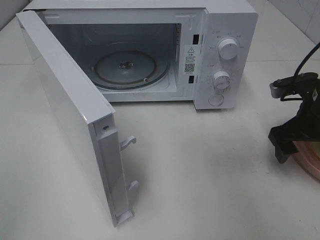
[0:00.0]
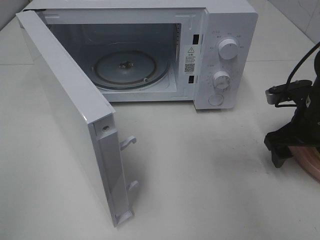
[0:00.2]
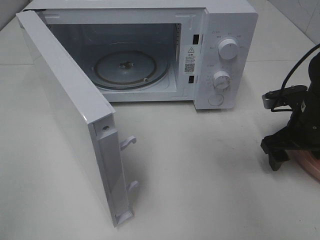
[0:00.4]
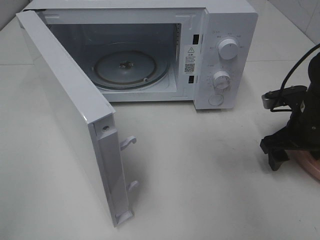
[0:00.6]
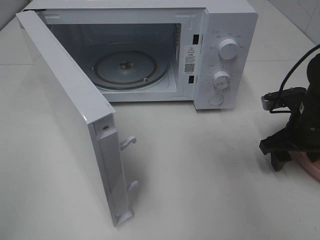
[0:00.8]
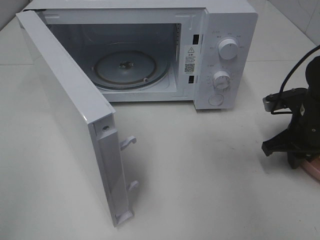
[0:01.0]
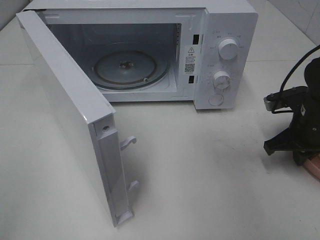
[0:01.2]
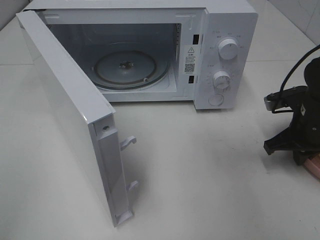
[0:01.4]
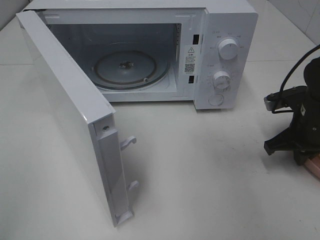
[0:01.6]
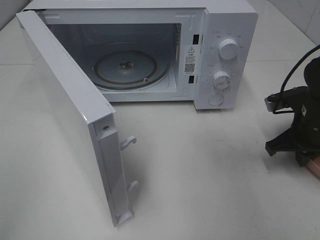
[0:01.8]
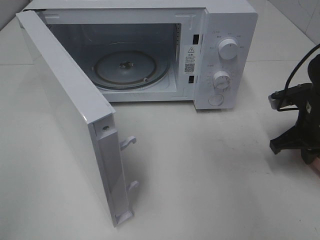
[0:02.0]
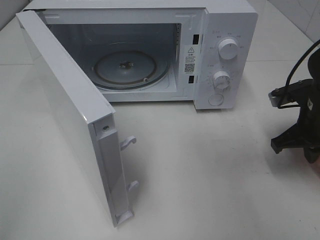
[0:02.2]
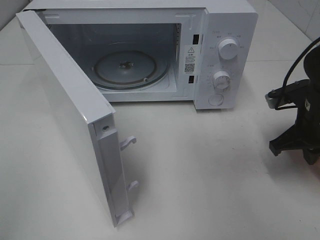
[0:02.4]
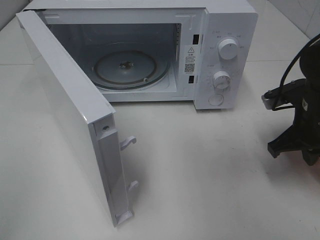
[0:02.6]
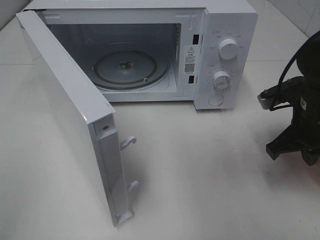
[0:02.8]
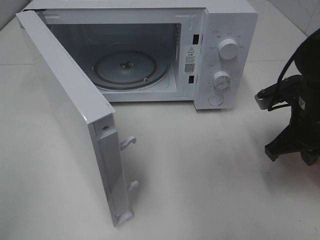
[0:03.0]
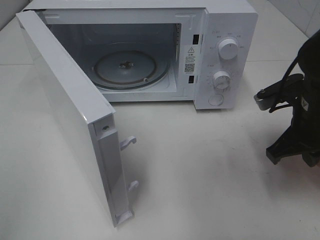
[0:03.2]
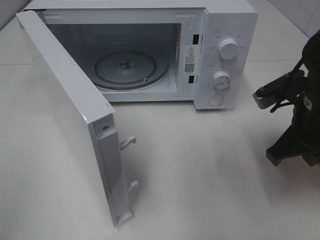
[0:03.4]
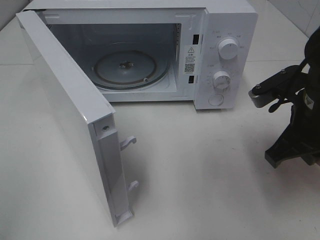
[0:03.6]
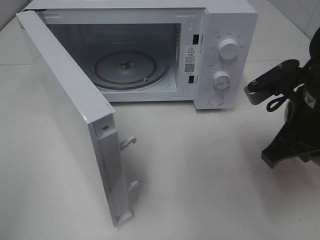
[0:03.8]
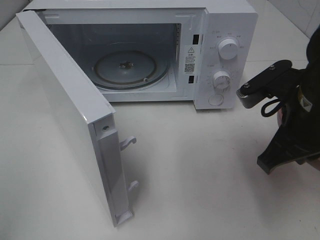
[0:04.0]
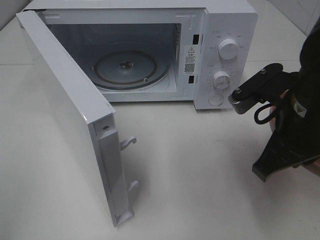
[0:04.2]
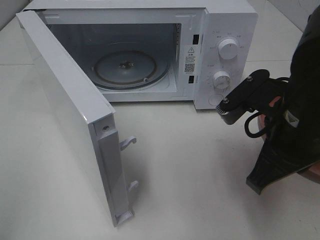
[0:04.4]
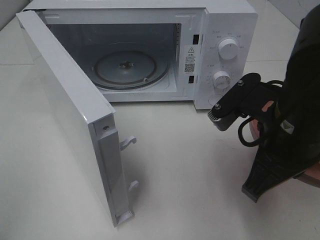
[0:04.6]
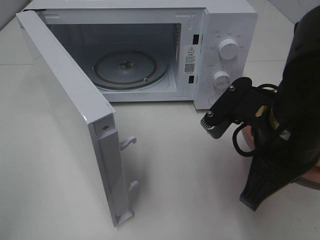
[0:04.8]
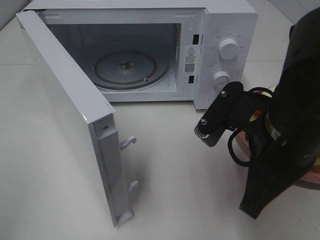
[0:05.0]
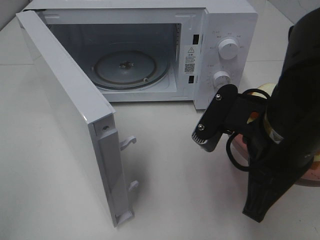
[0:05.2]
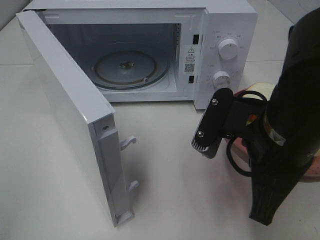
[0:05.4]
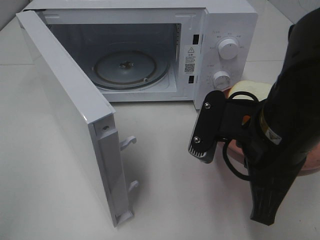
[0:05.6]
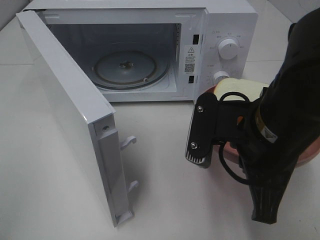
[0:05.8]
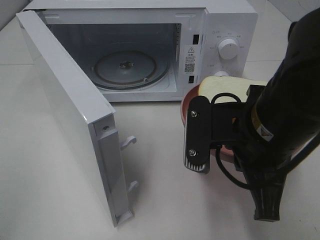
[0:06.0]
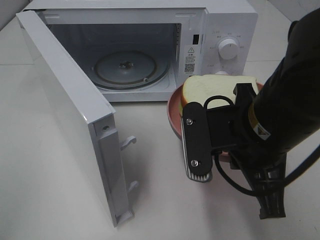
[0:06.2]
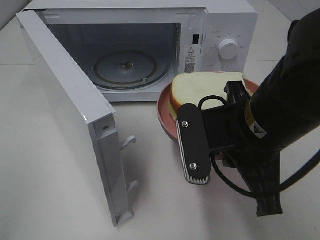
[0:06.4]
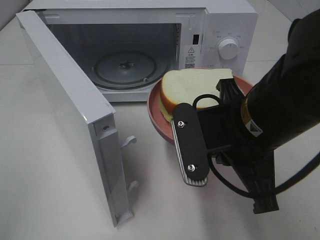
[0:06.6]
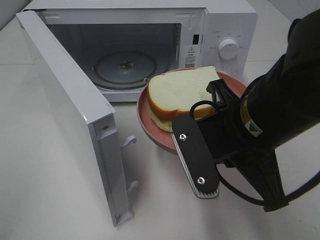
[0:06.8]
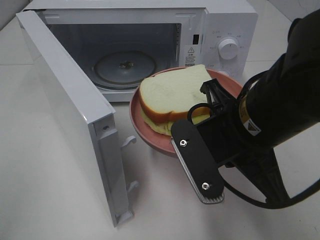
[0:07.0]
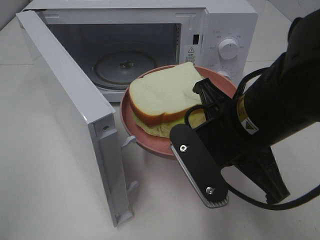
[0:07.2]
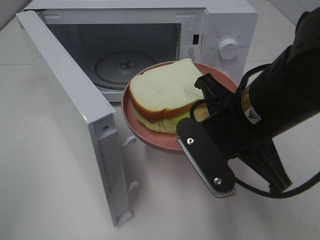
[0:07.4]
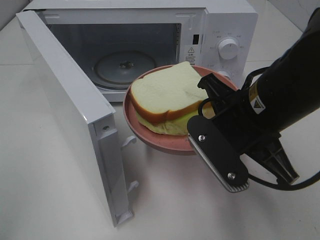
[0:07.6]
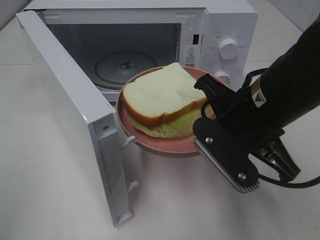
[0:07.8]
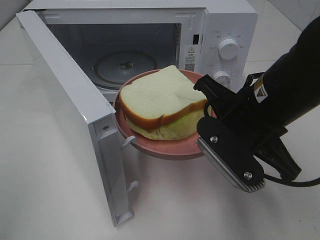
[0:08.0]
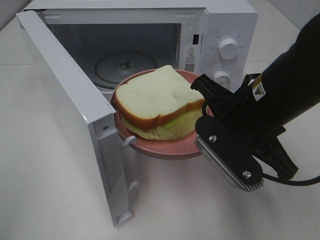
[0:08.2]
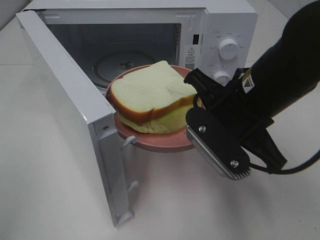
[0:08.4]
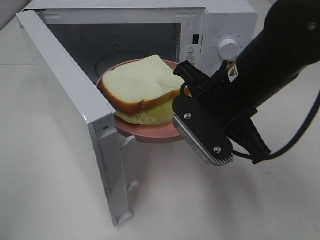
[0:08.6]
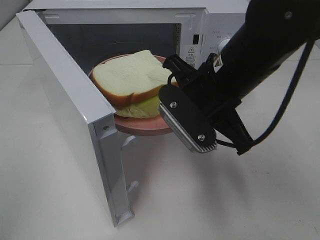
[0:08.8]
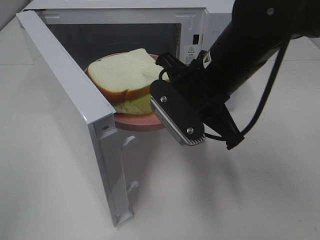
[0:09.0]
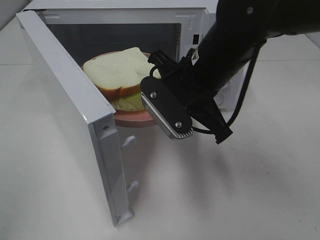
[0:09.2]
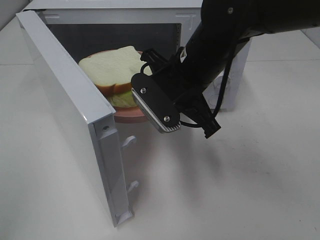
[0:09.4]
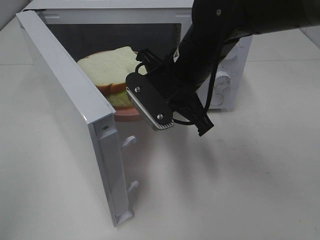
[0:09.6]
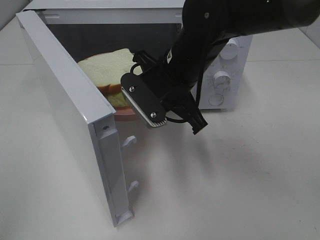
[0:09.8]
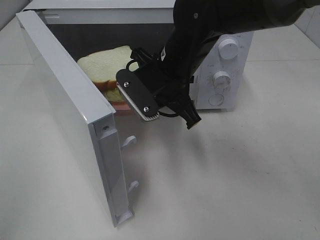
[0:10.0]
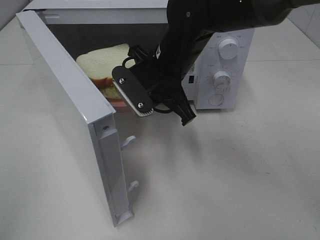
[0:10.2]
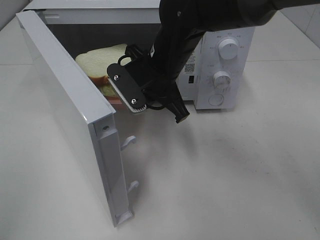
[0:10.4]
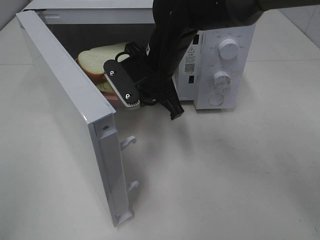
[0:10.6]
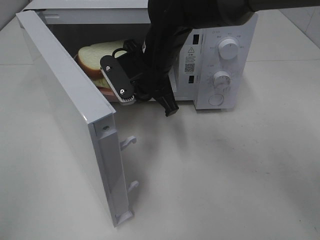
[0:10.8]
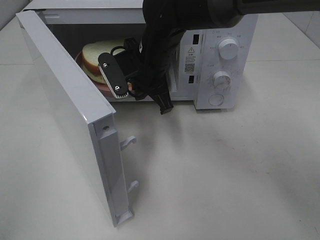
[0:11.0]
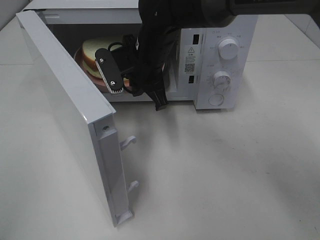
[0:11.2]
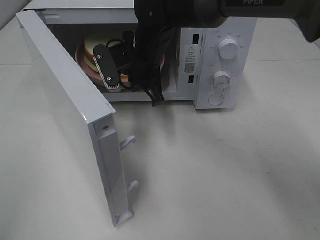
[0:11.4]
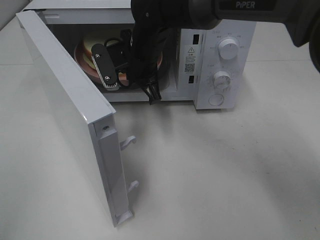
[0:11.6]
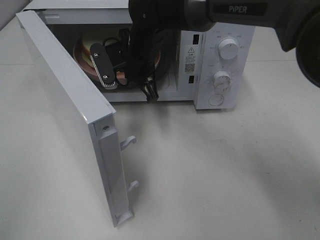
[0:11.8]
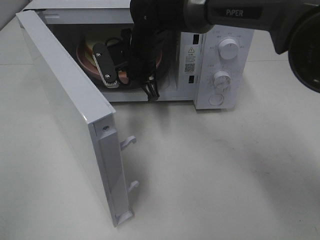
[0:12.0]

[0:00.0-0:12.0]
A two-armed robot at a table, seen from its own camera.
Task of the whole recording: Heat Sandwich.
0:00.0 to 0:01.6: The right gripper closes up.
0:01.6 to 0:03.0: The right gripper goes some 5 cm upward.
0:03.0 to 0:04.4: The right gripper goes about 10 cm to the left, backward and upward.
0:07.6 to 0:09.0: The right gripper goes some 5 cm forward.
0:09.0 to 0:10.4: The right gripper goes roughly 10 cm forward and to the left.
0:10.4 to 0:12.0: The right gripper shifts about 10 cm forward.

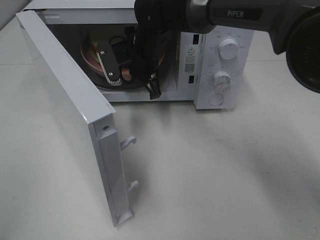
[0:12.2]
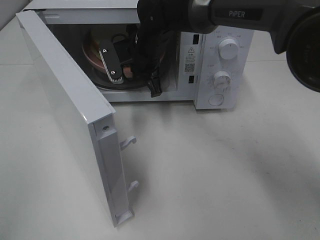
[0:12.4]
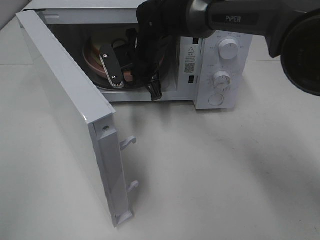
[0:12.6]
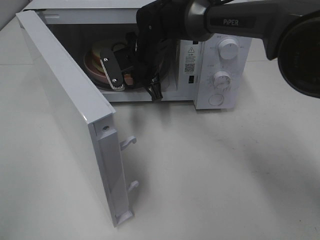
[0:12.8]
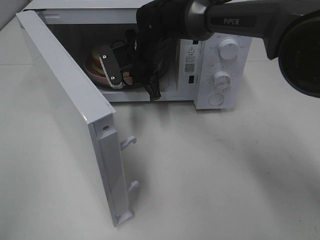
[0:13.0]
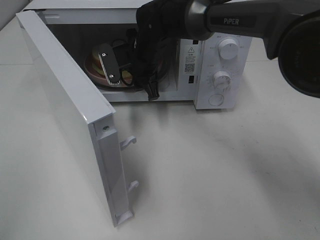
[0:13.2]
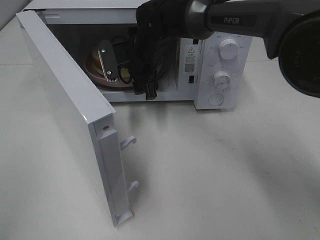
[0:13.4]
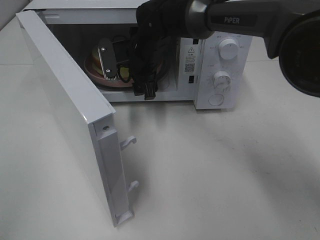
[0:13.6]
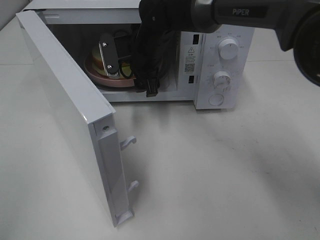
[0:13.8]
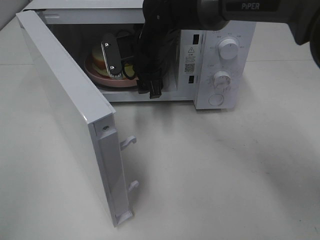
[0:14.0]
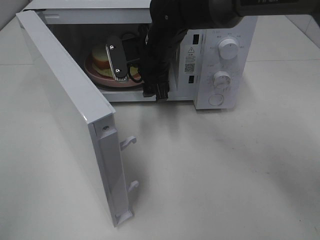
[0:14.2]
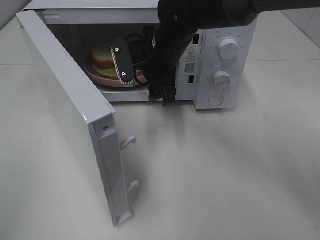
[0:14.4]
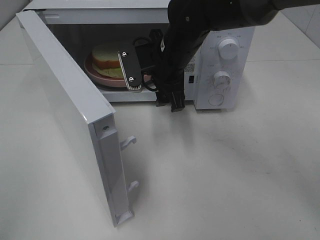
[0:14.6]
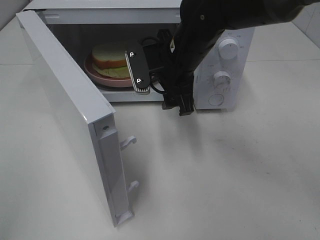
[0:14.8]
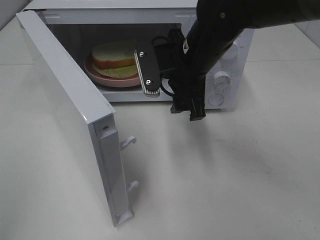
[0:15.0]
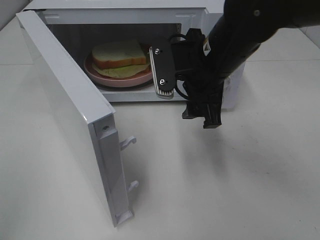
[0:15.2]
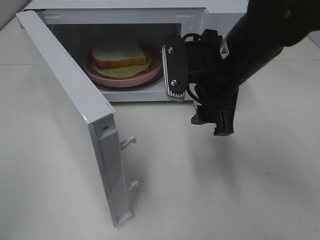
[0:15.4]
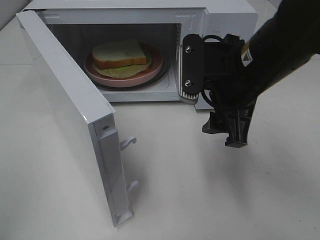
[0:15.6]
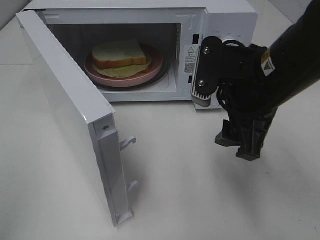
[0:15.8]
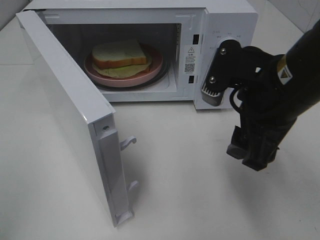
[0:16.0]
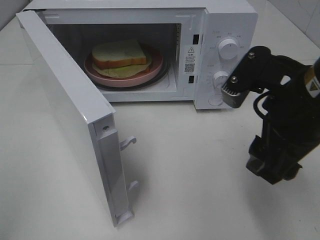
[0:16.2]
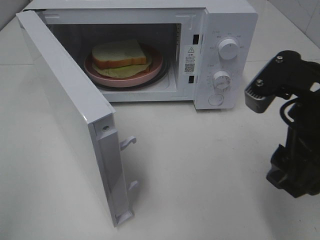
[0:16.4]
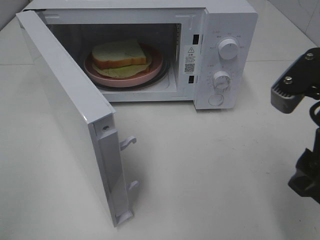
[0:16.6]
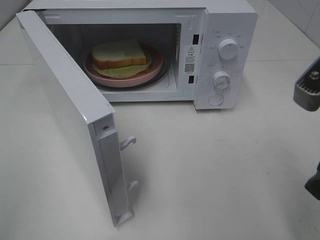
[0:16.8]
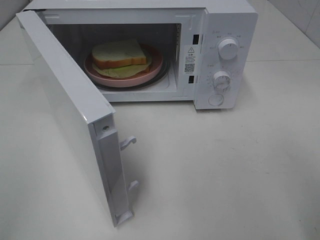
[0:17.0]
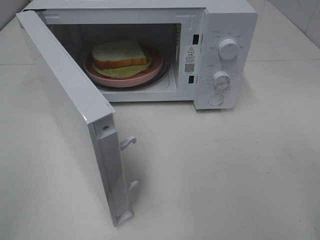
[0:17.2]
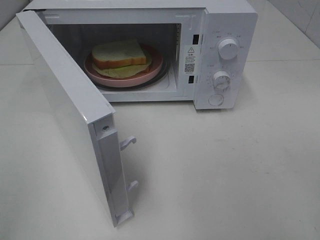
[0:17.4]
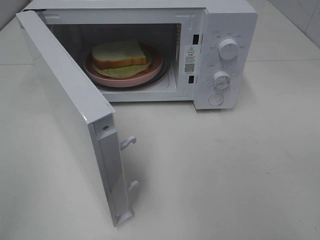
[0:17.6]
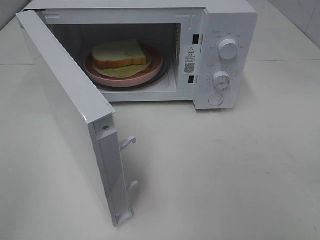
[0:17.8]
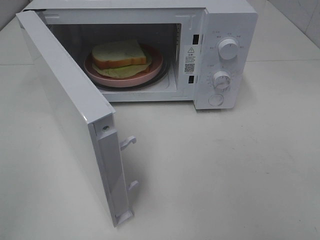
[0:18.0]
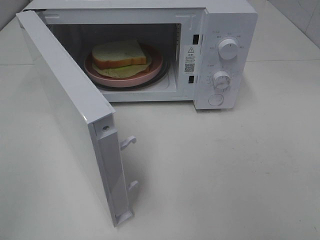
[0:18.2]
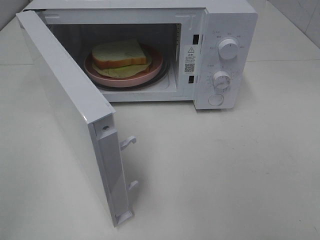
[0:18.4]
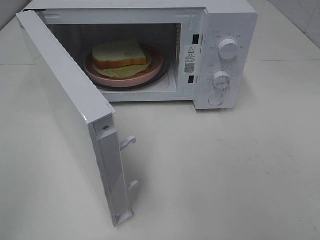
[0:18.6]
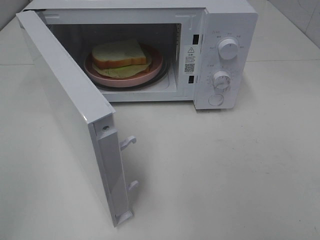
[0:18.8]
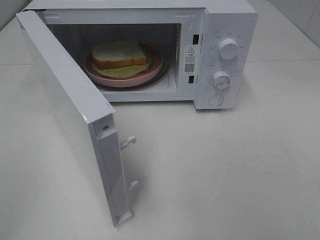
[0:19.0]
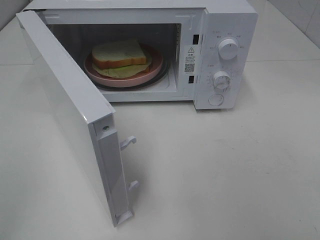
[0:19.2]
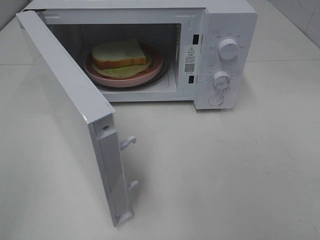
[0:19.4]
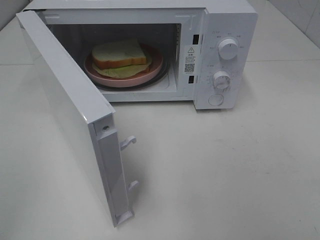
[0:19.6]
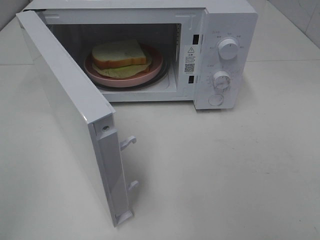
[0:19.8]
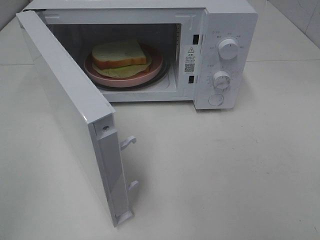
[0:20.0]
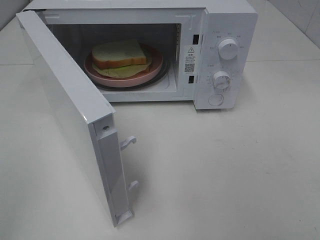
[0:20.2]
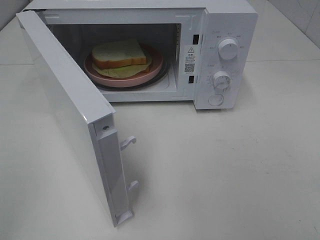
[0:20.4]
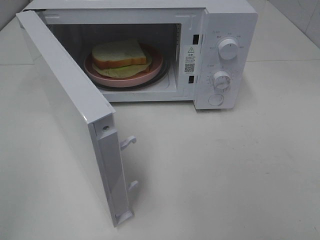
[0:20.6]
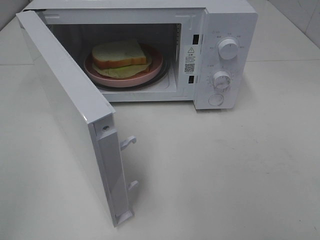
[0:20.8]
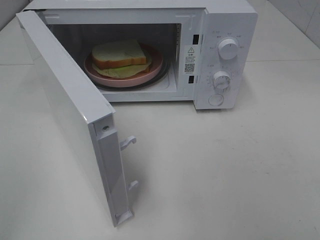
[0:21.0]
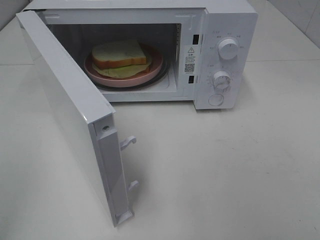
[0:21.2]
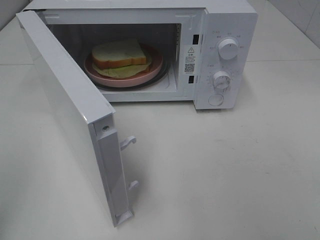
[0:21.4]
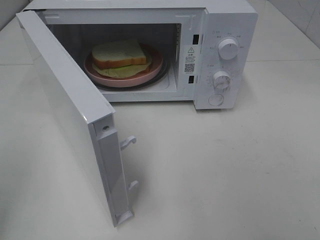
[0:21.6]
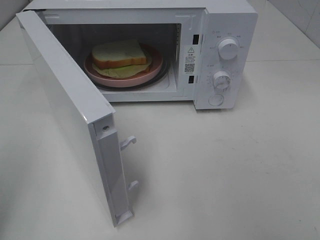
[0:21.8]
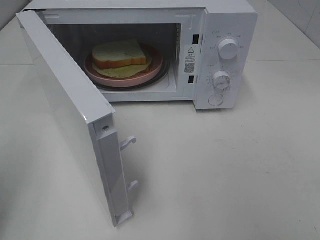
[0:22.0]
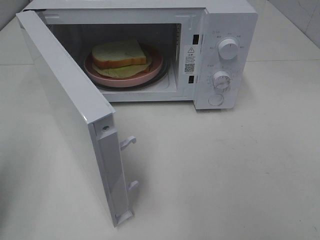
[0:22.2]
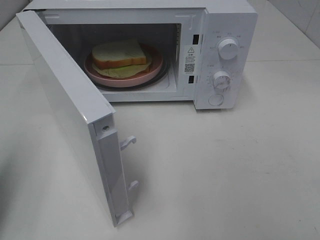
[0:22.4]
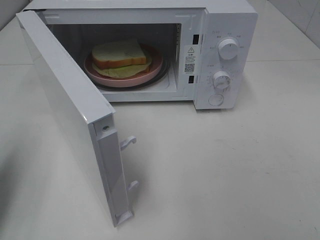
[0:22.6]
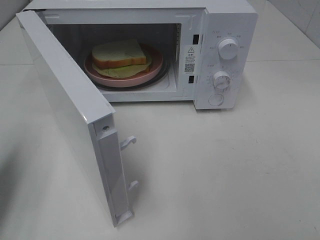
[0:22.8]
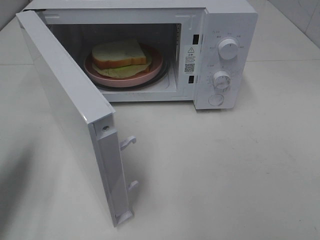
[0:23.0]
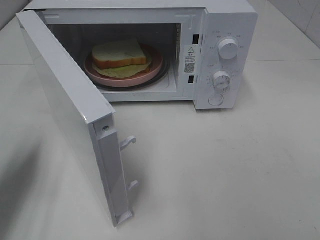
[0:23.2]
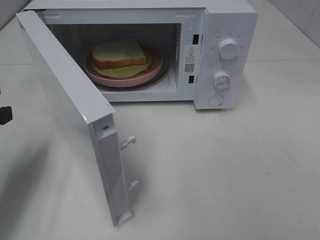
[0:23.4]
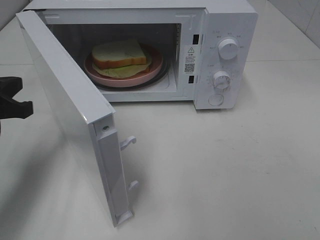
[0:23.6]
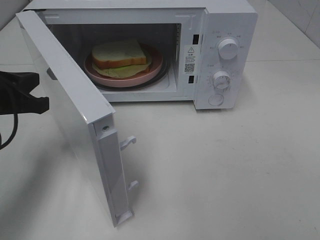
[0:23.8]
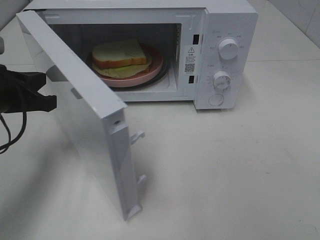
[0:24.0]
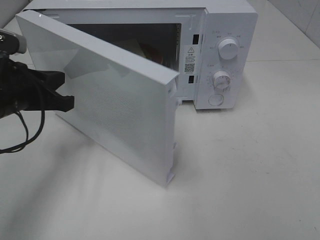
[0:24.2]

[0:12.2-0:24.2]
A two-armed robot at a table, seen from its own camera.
Task of the whole recording: Heat Sandwich.
Step, 0:12.2 to 0:14.2: Right hand: place the plate in the microwave.
0:12.2 to 0:13.8: The right gripper opens its fingers.
0:13.8 to 0:15.2: The right gripper heads backward and to the right, covering approximately 15 cm.
0:15.2 to 0:16.6: The right gripper travels backward and to the right by about 20 cm.
0:16.6 to 0:18.2: The right gripper moves backward and to the right, about 15 cm.
0:21.2 to 0:22.6: The left gripper heads forward and downward, covering some 15 cm, and closes its fingers.
0:22.6 to 0:24.2: The left gripper shifts about 15 cm to the right and forward.
